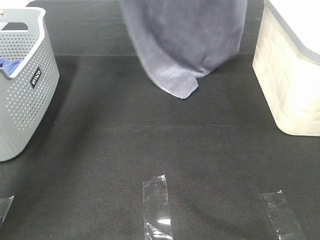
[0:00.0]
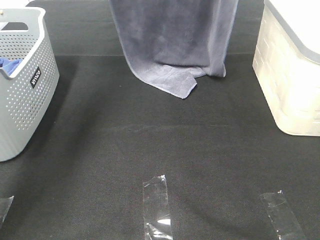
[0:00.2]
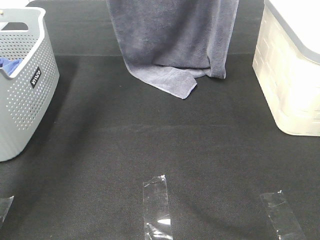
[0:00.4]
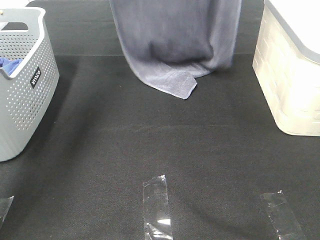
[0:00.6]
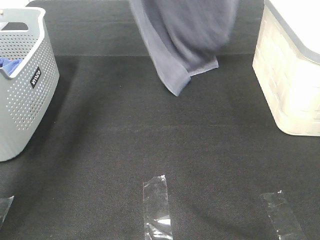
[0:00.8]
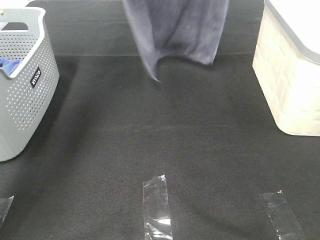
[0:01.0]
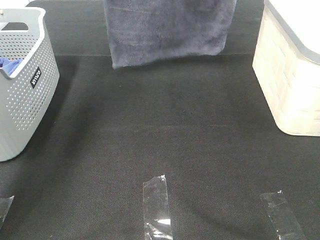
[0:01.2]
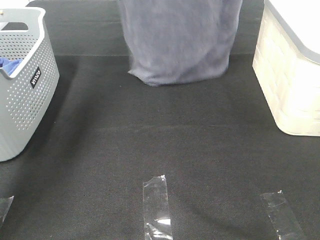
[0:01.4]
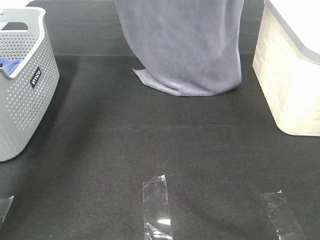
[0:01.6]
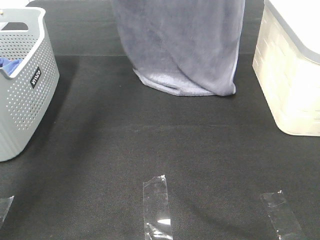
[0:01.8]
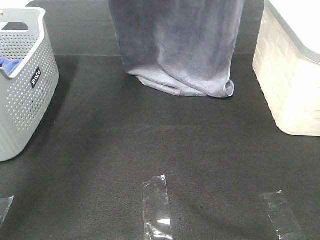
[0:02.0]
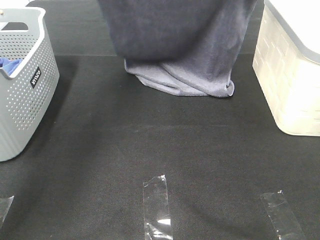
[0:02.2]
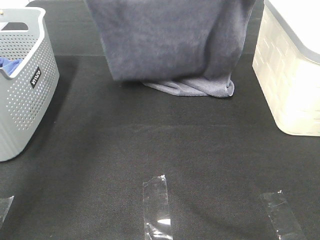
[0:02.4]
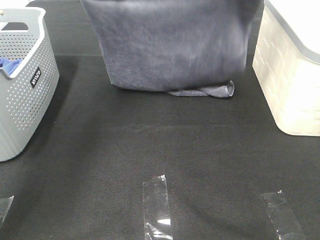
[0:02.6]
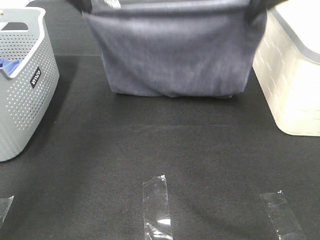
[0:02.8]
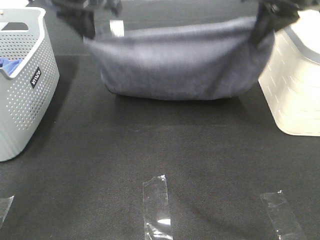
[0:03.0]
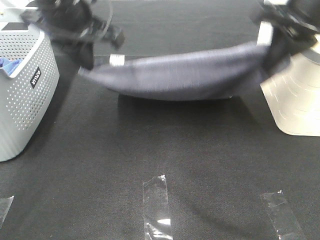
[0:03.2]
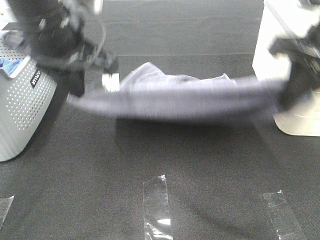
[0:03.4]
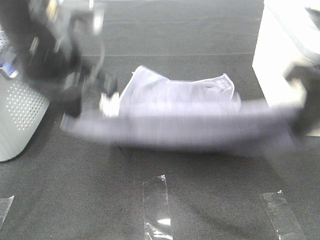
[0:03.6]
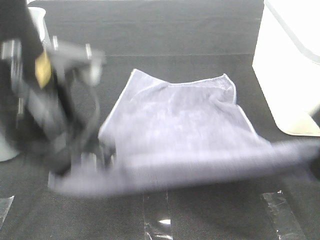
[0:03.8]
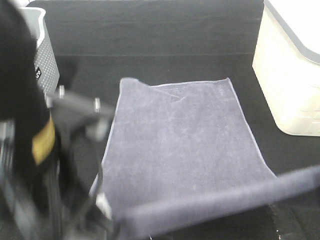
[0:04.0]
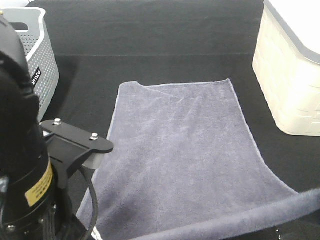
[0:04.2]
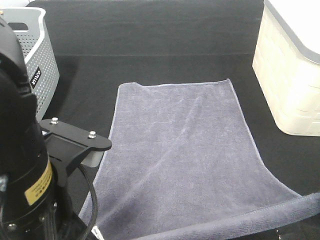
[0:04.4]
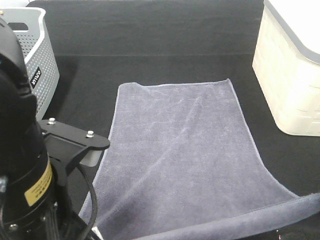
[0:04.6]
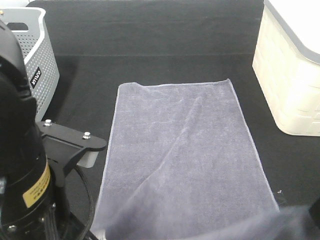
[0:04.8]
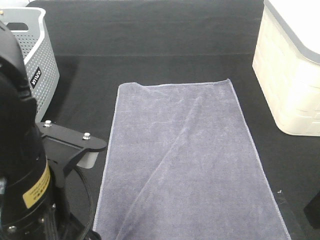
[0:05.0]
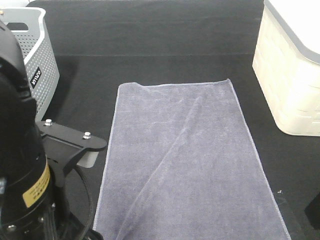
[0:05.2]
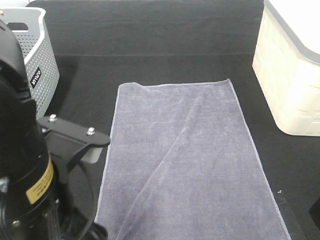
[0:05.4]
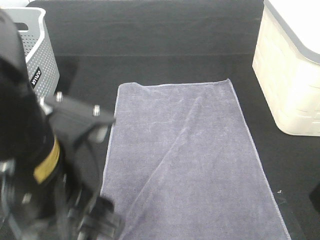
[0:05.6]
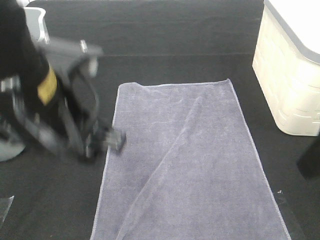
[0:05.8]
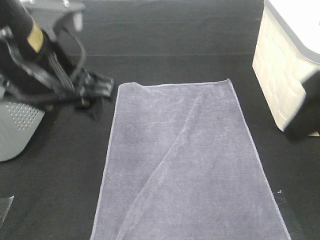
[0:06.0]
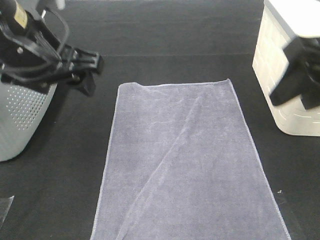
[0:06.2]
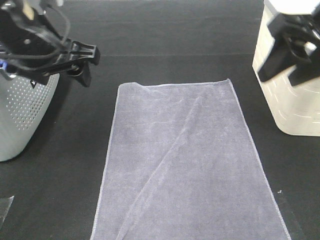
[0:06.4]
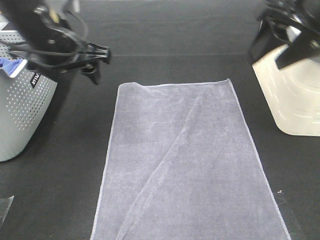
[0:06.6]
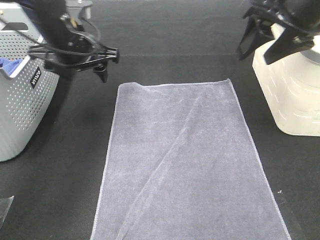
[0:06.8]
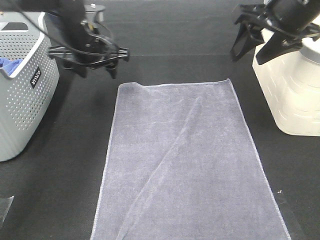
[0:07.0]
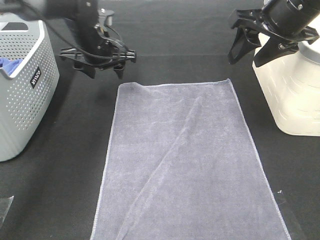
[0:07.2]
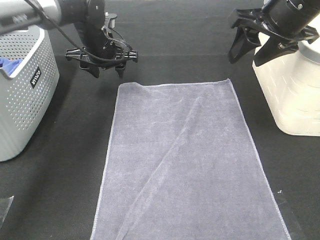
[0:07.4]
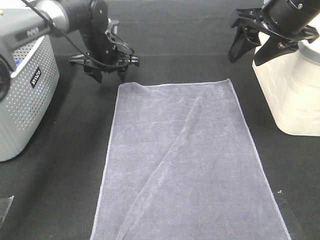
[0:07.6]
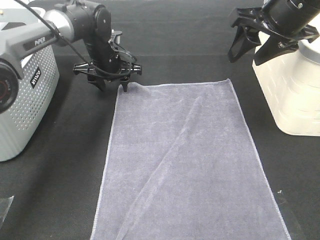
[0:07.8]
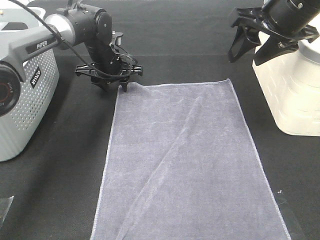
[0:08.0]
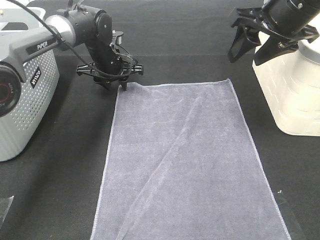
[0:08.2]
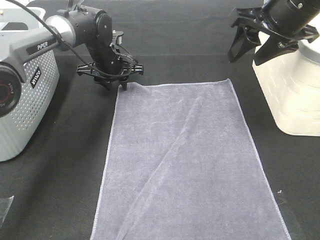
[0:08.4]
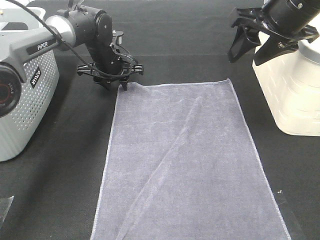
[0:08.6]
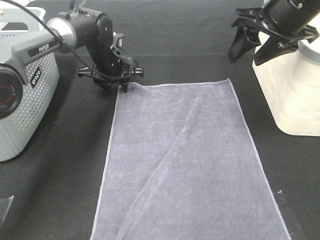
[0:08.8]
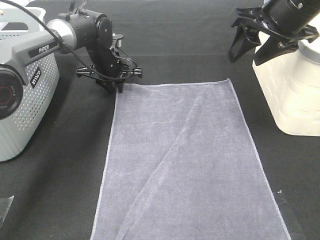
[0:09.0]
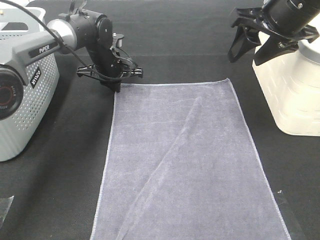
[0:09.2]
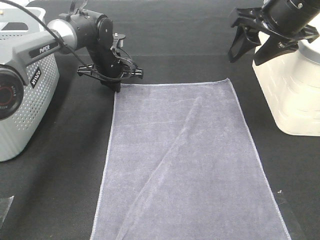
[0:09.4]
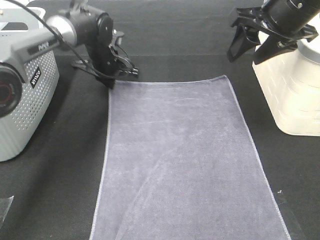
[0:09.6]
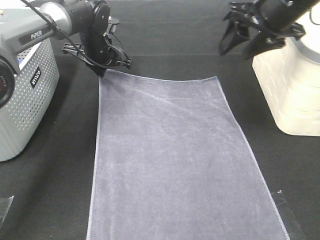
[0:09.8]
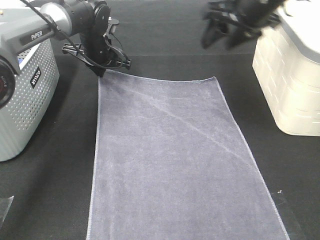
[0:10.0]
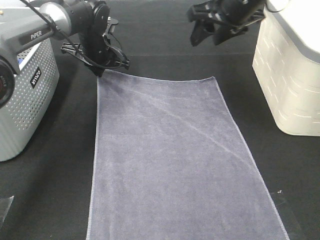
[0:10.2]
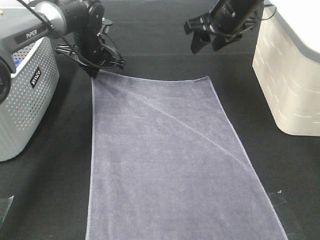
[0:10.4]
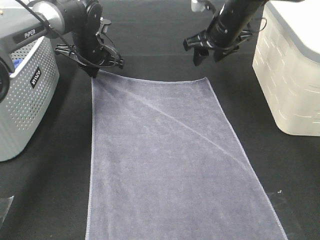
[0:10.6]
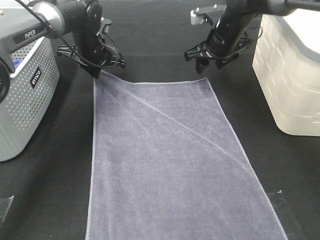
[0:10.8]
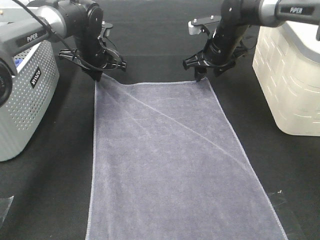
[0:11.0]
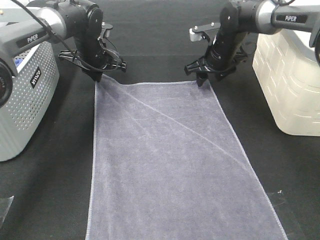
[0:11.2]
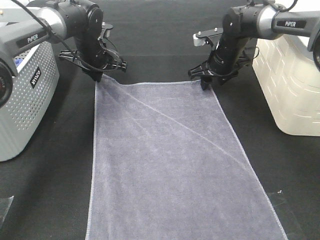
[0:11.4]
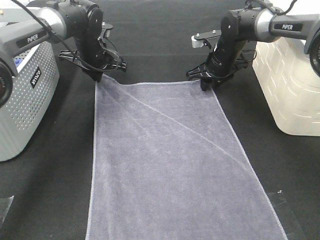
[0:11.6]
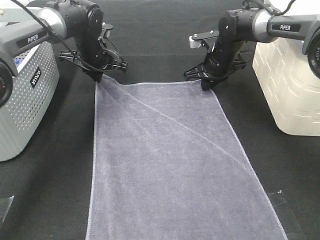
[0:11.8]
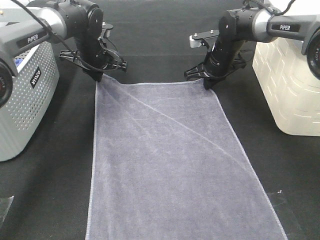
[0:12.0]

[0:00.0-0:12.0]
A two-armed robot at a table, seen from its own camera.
Task of the whole recording: Remove the towel and place it.
Step, 0:01.6 to 0:09.2: Left hand:adjust the gray towel.
Step, 0:01.6 to 0:09.2: Right hand:adjust the gray towel.
0:00.0 to 0:01.6: The right gripper reaches about 5 cm upward, then returns. Meanwhile the left gripper travels upward and back again, some 10 cm each way.
0:01.6 to 0:03.0: The right gripper moves downward and backward, about 15 cm; the left gripper travels backward and downward by about 15 cm.
0:03.0 to 0:04.4: Both grippers travel together backward, about 25 cm.
0:04.4 to 0:06.0: The right gripper moves forward, approximately 5 cm, and opens, while the left gripper moves forward, some 10 cm, and opens.
0:06.0 to 0:07.6: The left gripper shifts some 30 cm forward and downward, while the right gripper shifts some 15 cm forward.
0:07.6 to 0:09.0: The left gripper closes.
0:09.0 to 0:10.4: The right gripper shifts roughly 15 cm forward, to the left and downward, while the left gripper moves about 5 cm.
0:10.4 to 0:12.0: The right gripper goes approximately 15 cm downward and forward, and closes up.

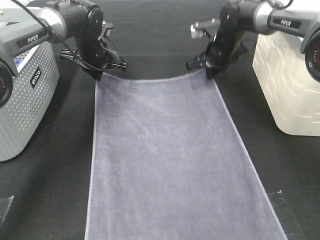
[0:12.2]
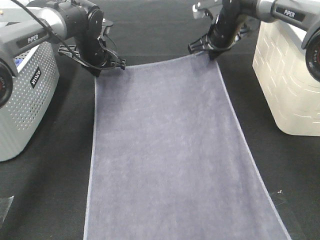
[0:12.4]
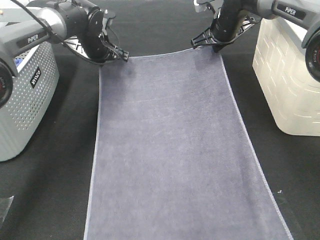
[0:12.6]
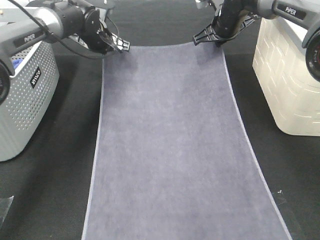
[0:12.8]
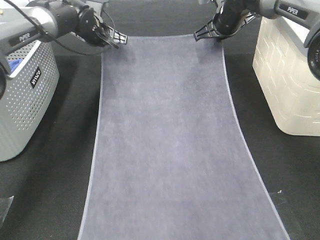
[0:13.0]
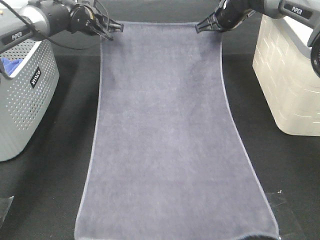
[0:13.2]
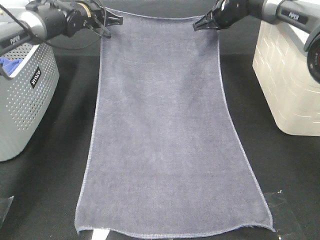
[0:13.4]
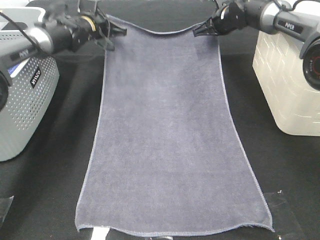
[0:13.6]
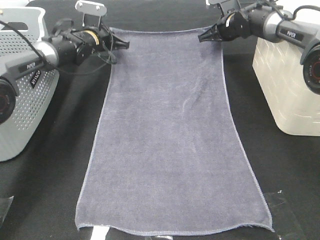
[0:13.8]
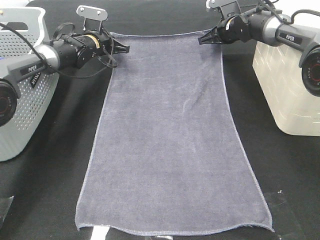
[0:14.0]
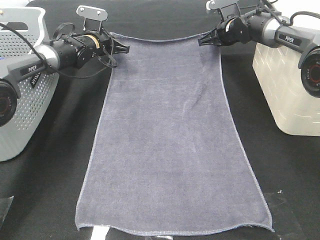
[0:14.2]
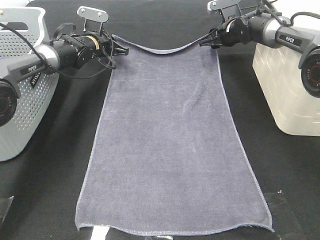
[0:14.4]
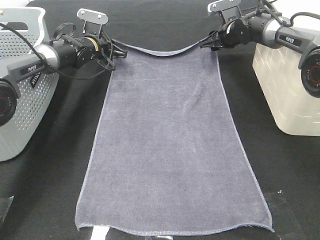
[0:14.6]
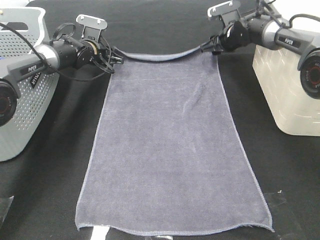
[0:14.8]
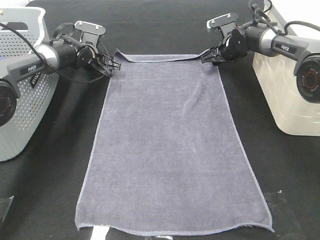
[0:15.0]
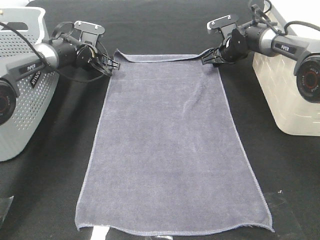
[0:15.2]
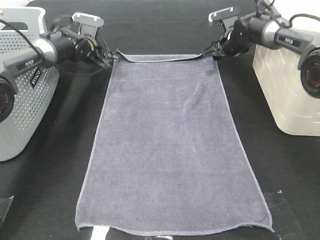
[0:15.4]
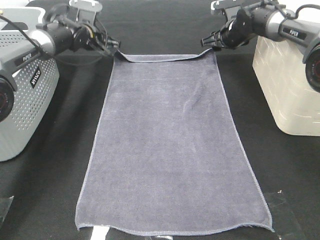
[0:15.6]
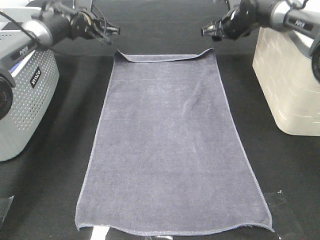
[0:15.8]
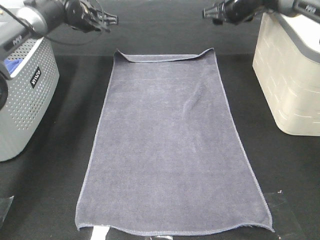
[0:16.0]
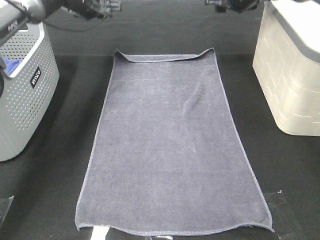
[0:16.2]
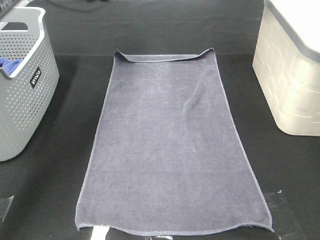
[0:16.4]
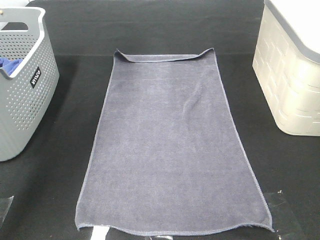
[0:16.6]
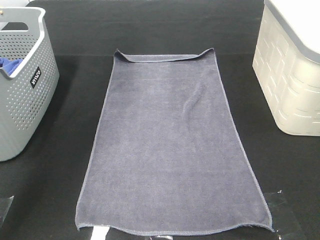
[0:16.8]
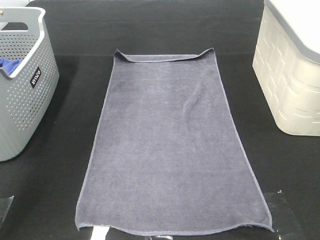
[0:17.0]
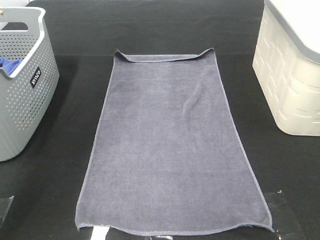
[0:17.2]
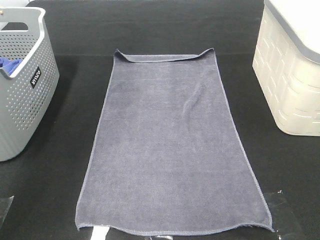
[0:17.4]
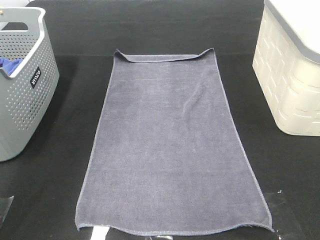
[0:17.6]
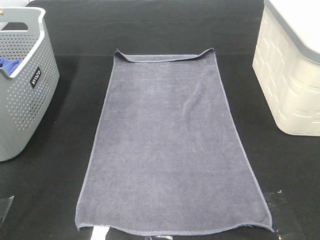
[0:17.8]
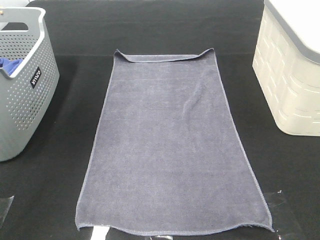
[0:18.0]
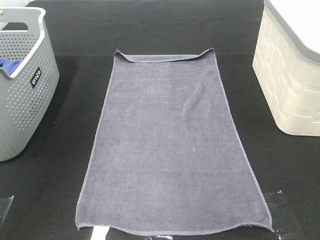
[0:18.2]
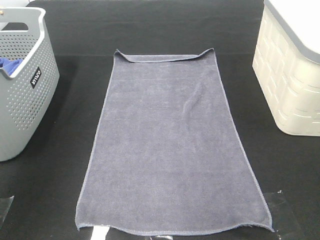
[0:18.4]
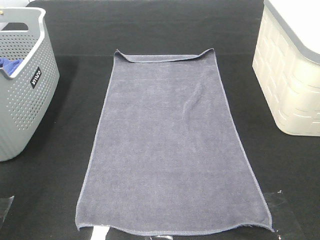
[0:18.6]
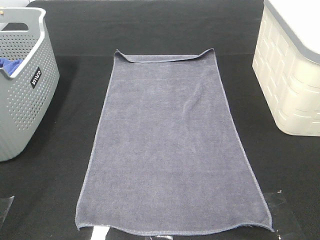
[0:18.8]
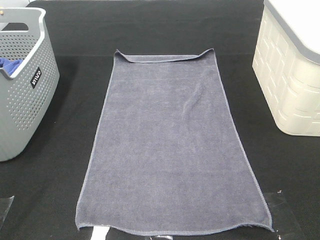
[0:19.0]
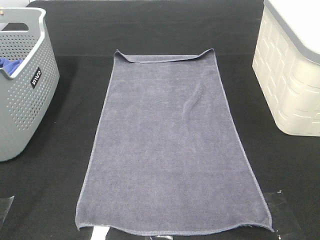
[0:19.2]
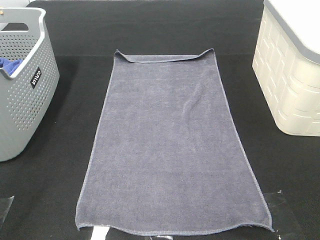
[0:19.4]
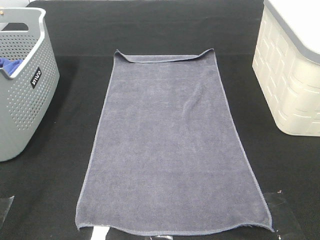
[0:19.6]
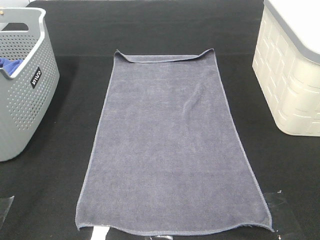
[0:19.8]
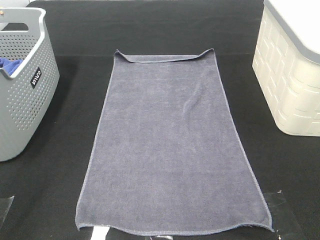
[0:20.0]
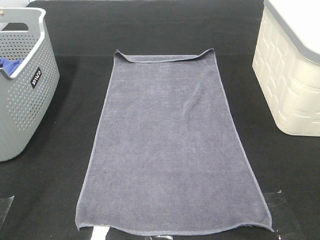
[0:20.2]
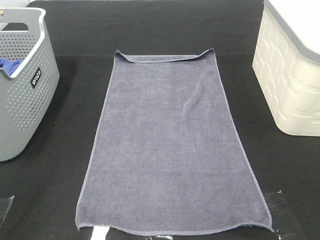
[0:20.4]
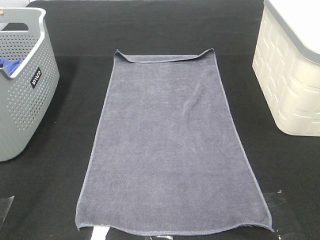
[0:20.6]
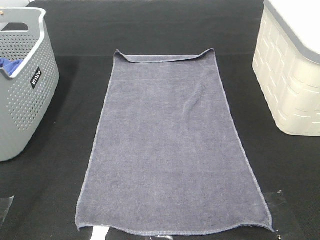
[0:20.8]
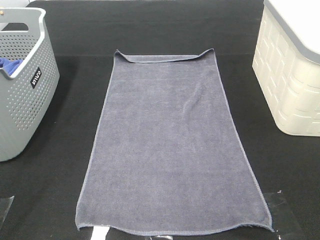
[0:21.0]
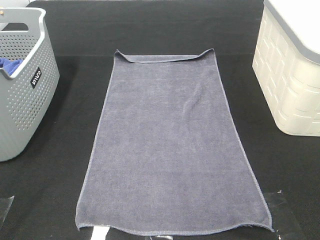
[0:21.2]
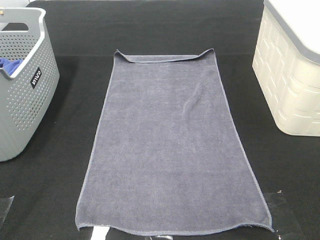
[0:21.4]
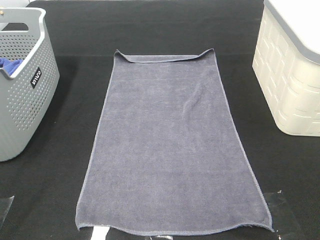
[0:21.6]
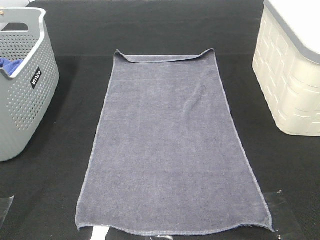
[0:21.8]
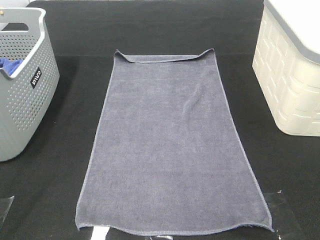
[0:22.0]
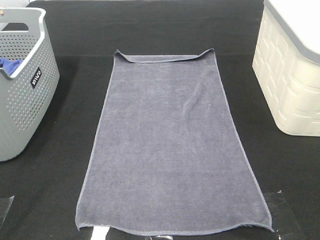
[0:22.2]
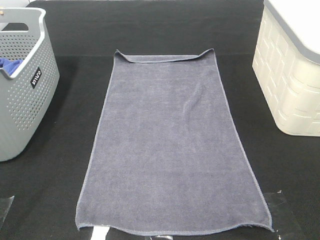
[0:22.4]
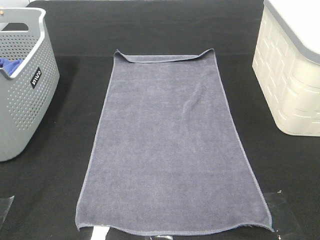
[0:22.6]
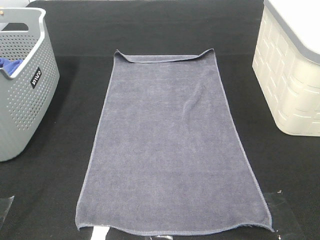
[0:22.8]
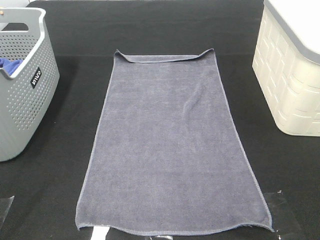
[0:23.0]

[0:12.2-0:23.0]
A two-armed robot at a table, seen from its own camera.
Task of the whole recording: Remove the towel and place it.
0:12.2 to 0:13.8: The grippers both shift forward by some 5 cm.
0:13.8 to 0:15.2: The right gripper shifts by roughly 5 cm, and opens its fingers. Meanwhile the left gripper opens.
0:15.2 to 0:16.8: Both grippers move upward, about 30 cm.
0:16.8 to 0:18.4: Both grippers move backward, some 30 cm.
